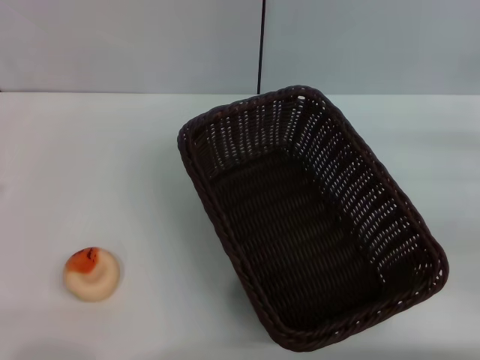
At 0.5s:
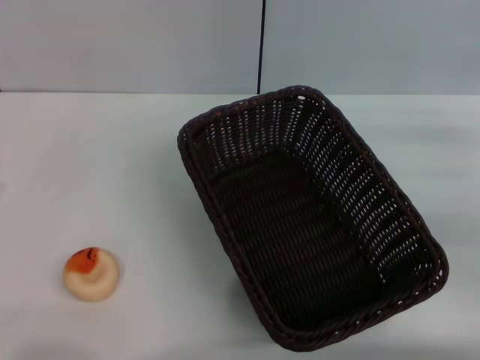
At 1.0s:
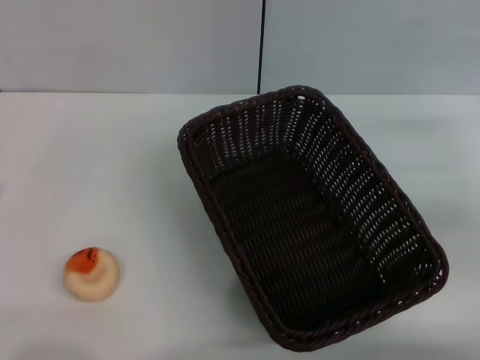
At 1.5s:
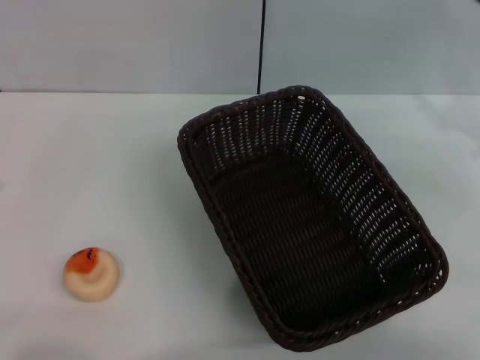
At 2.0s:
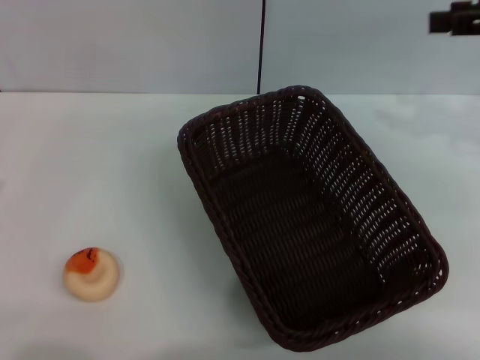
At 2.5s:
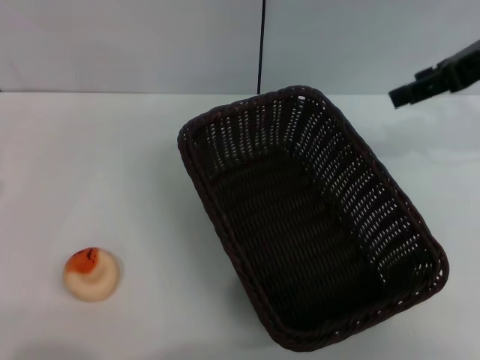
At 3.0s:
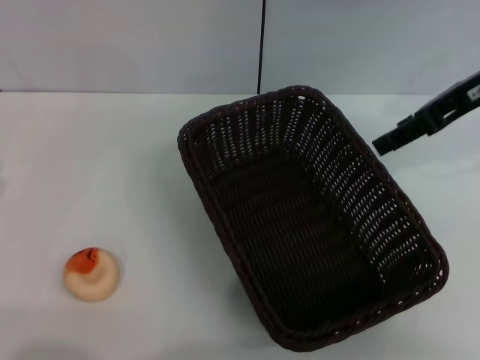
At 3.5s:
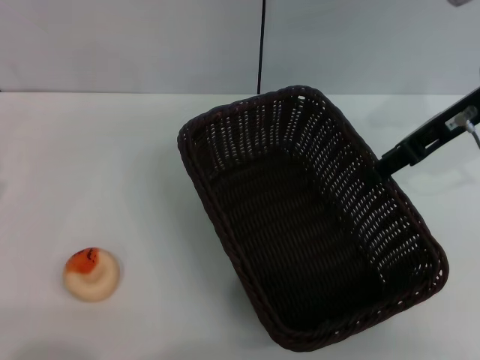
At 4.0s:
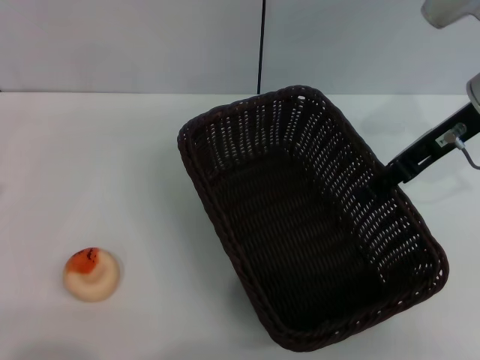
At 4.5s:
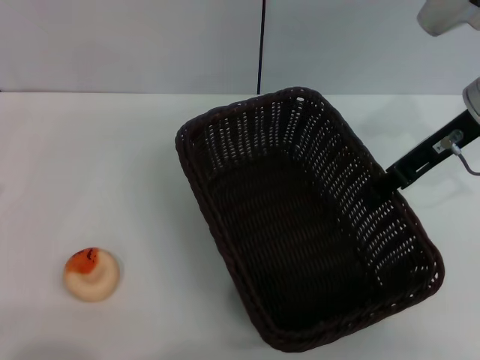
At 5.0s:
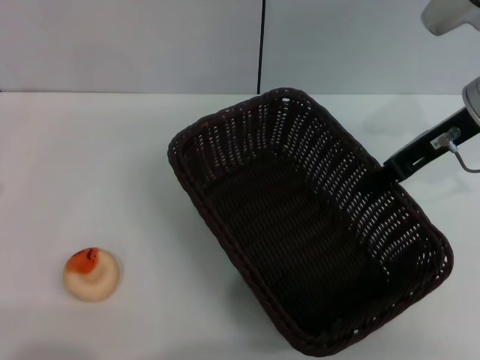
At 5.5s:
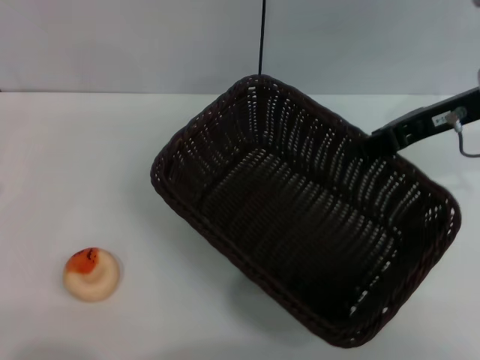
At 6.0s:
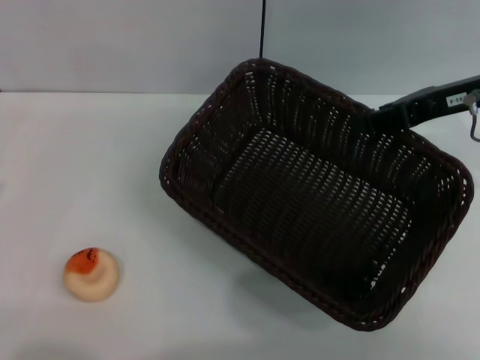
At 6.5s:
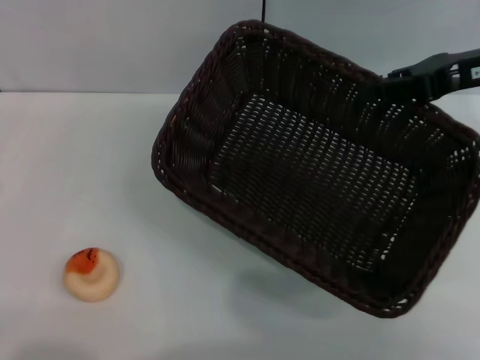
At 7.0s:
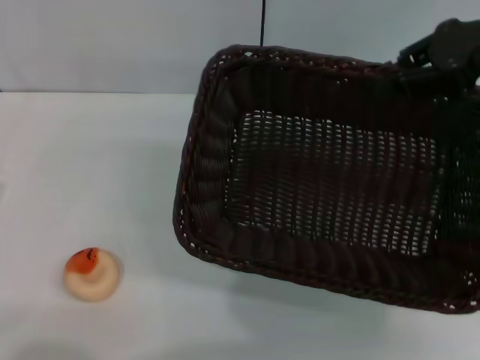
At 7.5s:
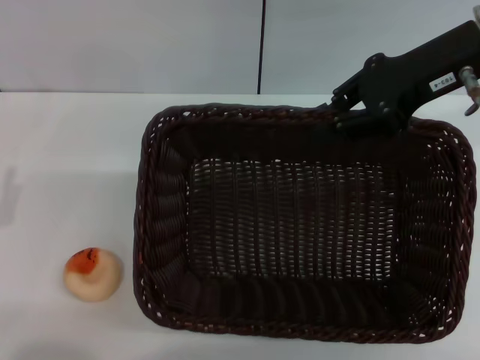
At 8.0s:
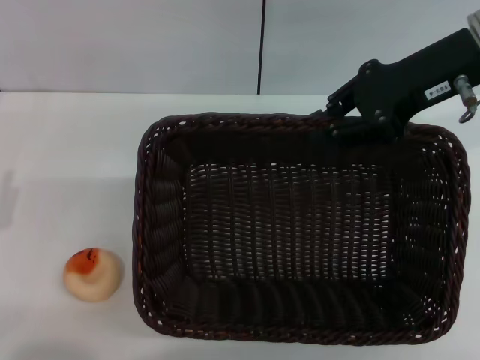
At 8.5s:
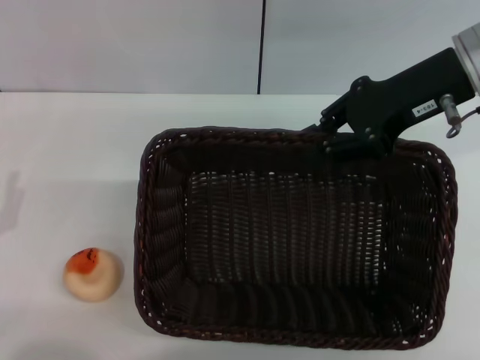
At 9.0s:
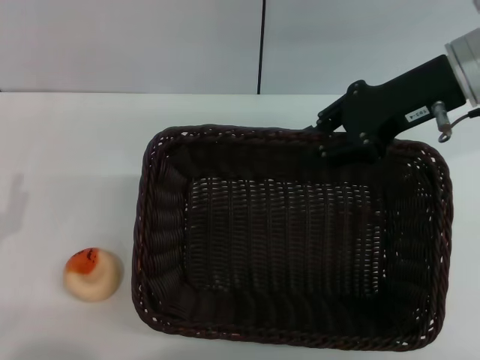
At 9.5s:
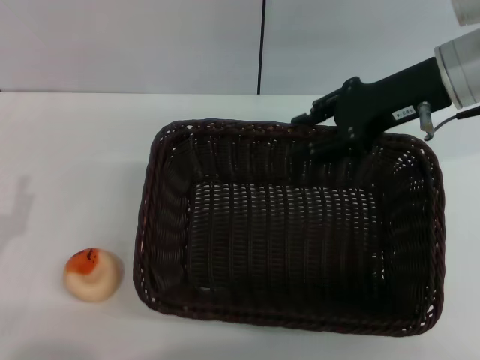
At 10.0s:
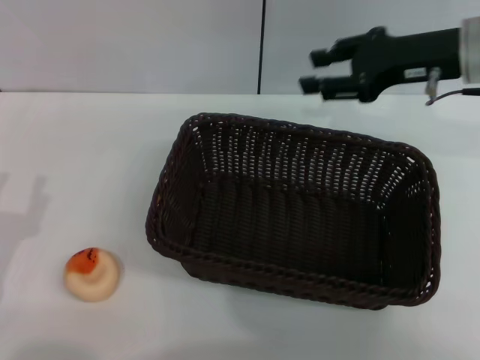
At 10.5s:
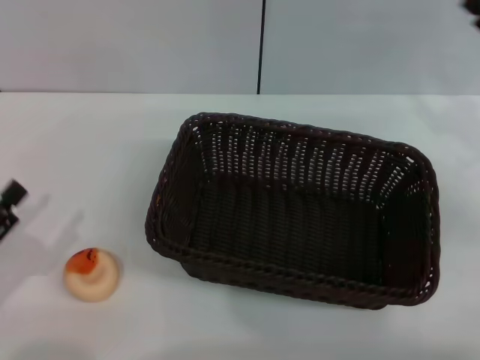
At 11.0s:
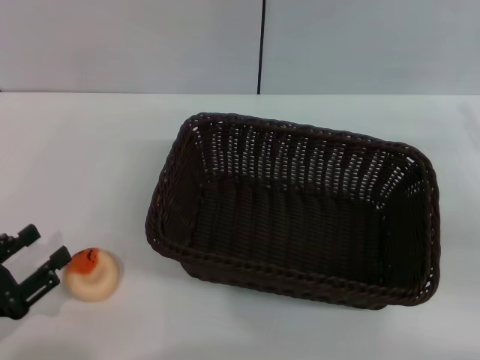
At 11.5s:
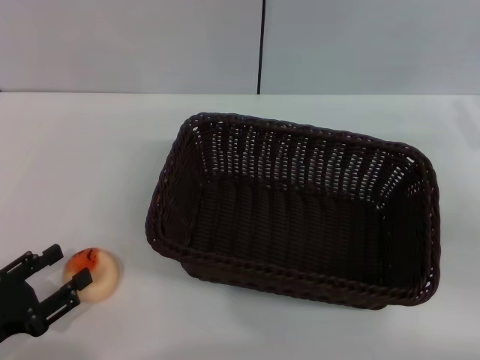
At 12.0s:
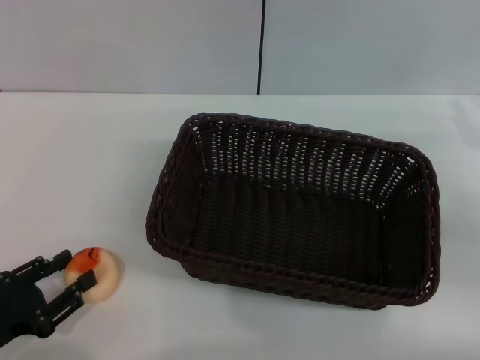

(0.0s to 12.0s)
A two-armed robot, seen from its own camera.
Step, 0.0s - 9.5s: Move the basket to the center of view with the right gripper.
0.0s - 2.0s: The right gripper is displaced upward by roughly 20 cm.
2.0s - 4.0s: The right gripper is displaced to the left and downward by about 10 cm.
4.0s - 6.0s: The right gripper closes up.
6.0s - 8.0s: The right gripper ends up approximately 5 cm from where it was.
8.0s - 10.0s: The right gripper is displaced downward by roughly 5 cm, and opens its fingers.
10.0s - 12.0s: The right gripper goes approximately 20 cm to the right, backward and downward.

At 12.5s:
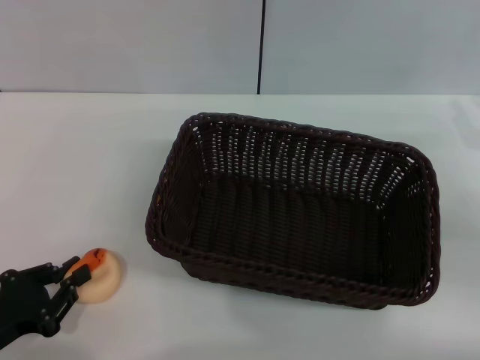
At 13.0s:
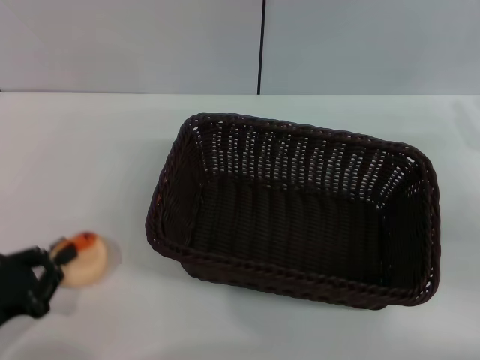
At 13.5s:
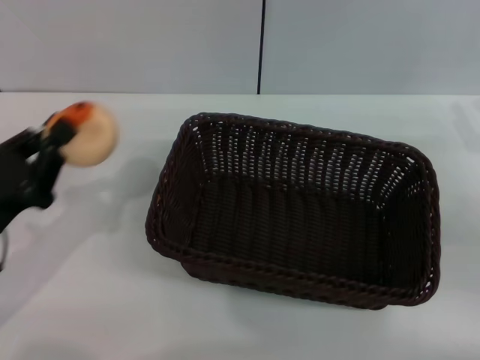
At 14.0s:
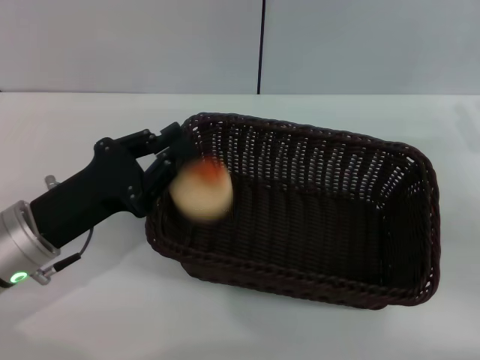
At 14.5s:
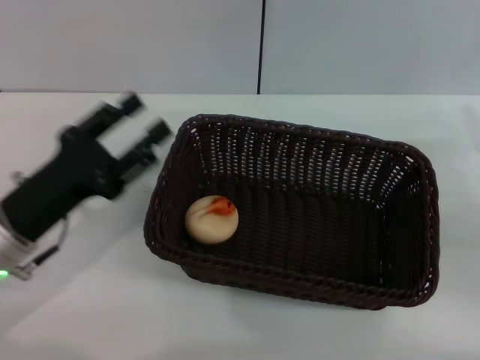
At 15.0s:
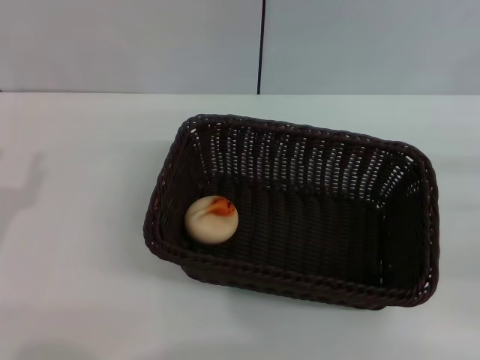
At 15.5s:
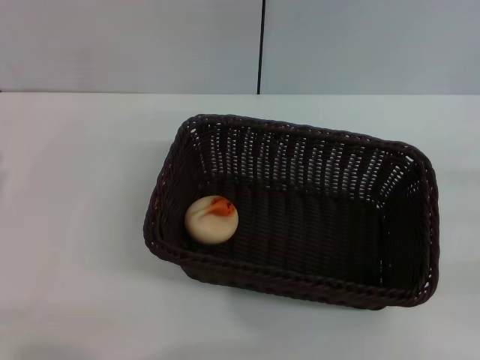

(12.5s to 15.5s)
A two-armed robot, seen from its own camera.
Step, 13.5s - 14.0s: Place the egg yolk pastry into the basket with the left gripper.
12.5s - 14.0s: The left gripper is displaced forward, to the right and upward by some 15 cm.
14.0s - 15.5s: The left gripper travels to the left and backward by some 10 cm, and opens; the right gripper travels to the right and backward by about 10 cm.
